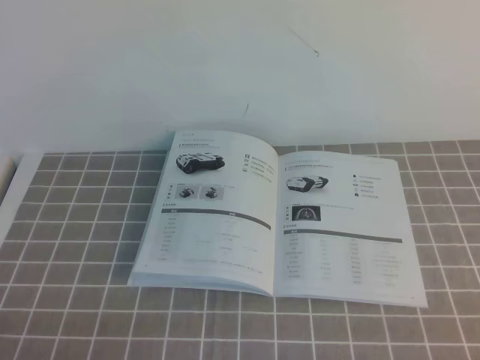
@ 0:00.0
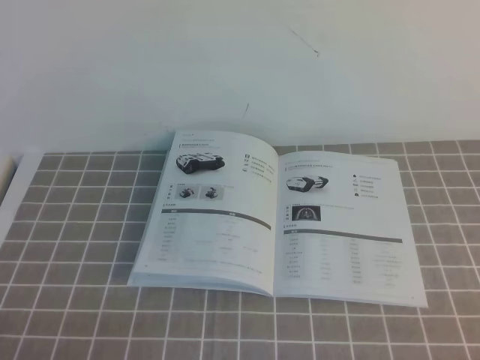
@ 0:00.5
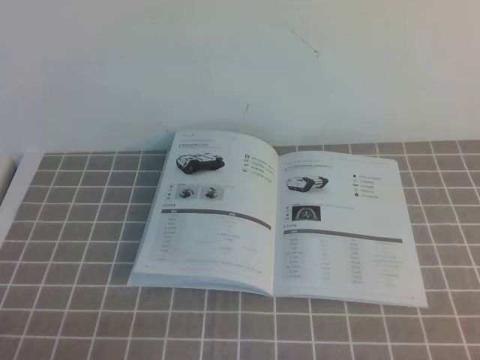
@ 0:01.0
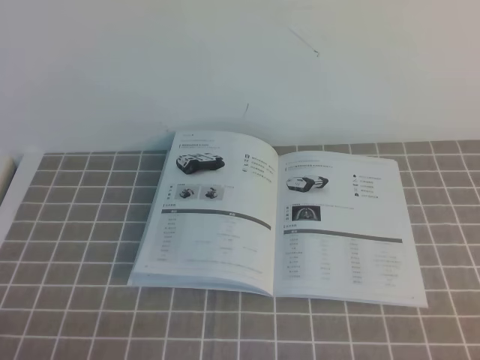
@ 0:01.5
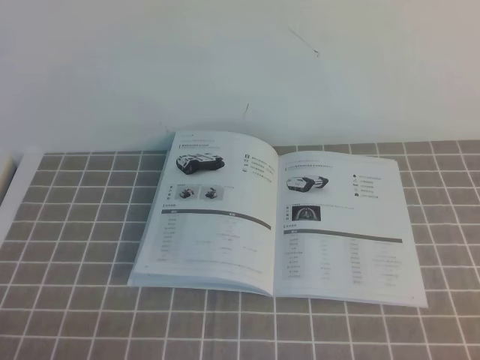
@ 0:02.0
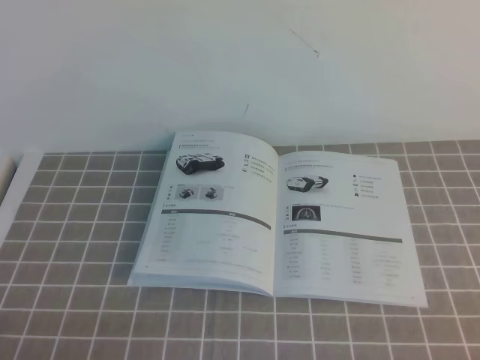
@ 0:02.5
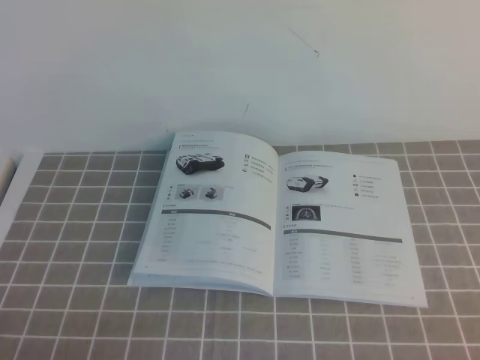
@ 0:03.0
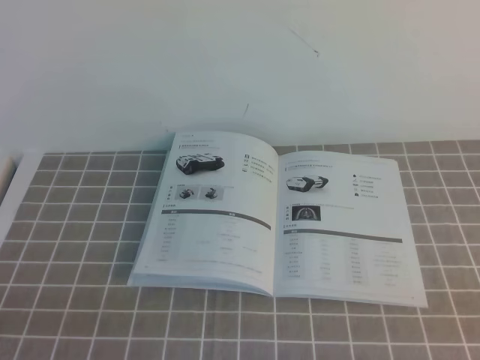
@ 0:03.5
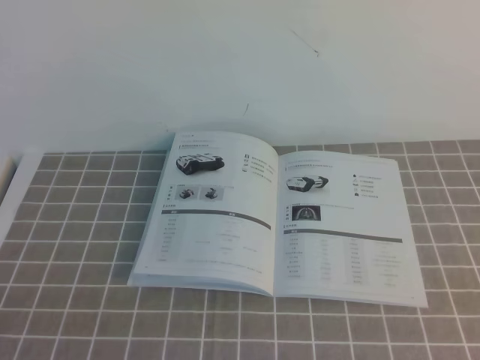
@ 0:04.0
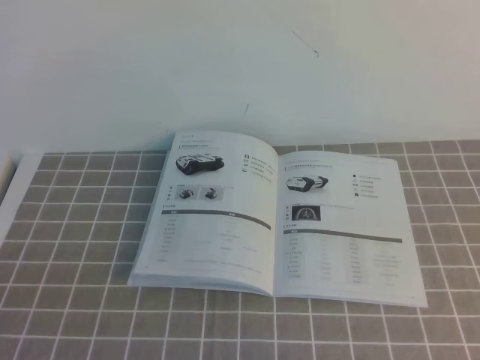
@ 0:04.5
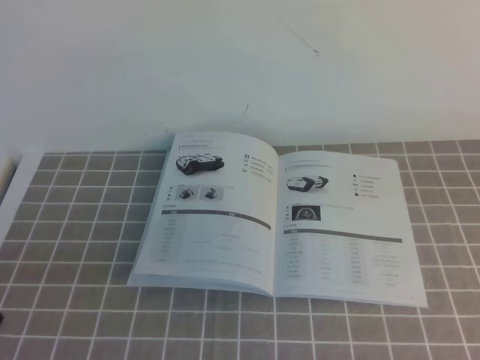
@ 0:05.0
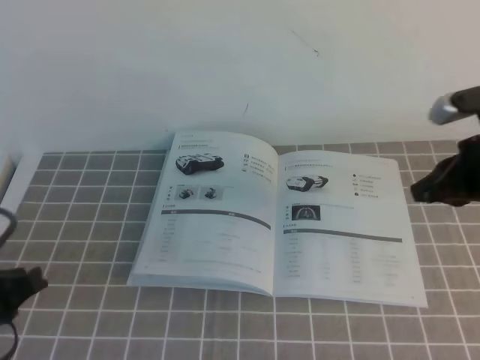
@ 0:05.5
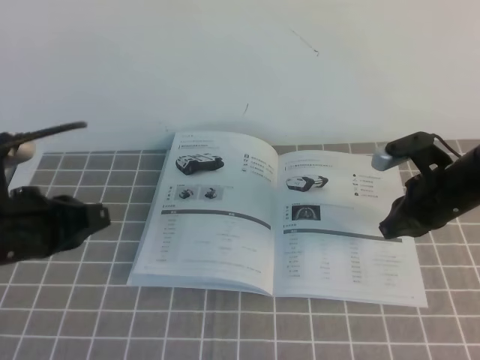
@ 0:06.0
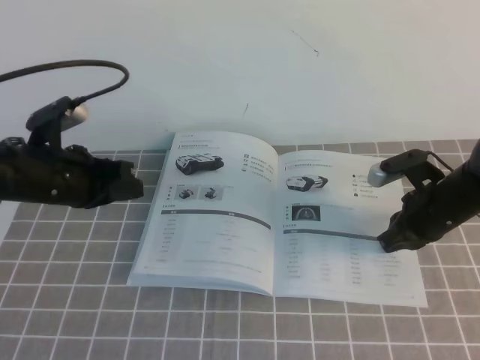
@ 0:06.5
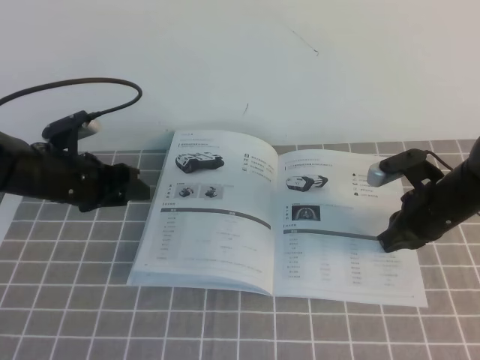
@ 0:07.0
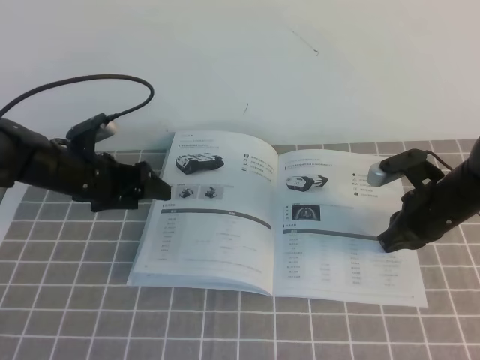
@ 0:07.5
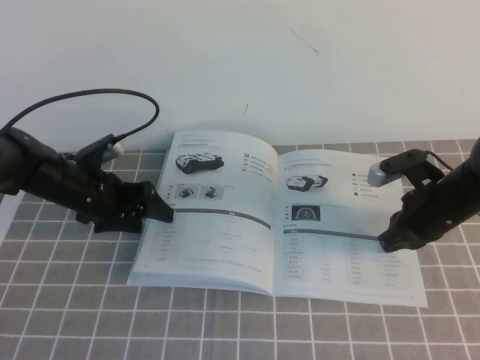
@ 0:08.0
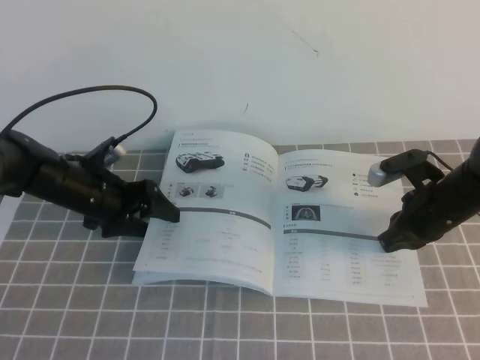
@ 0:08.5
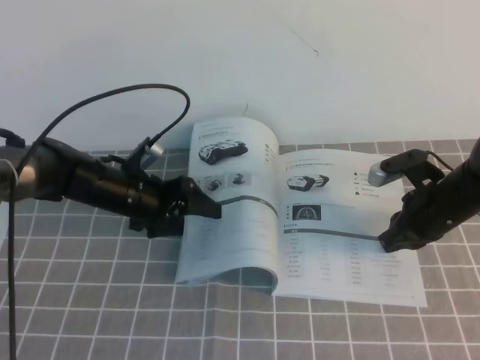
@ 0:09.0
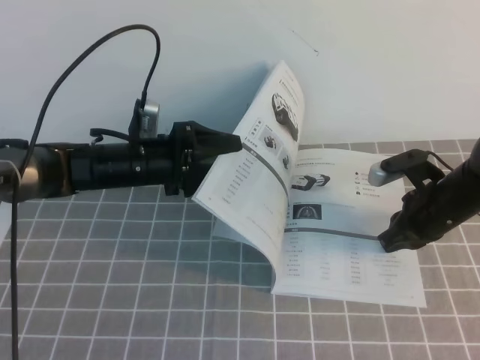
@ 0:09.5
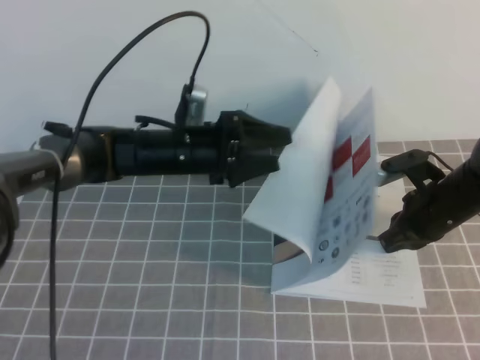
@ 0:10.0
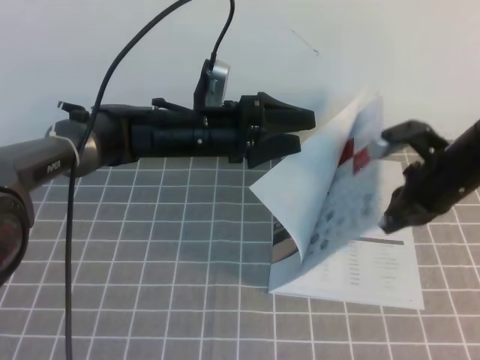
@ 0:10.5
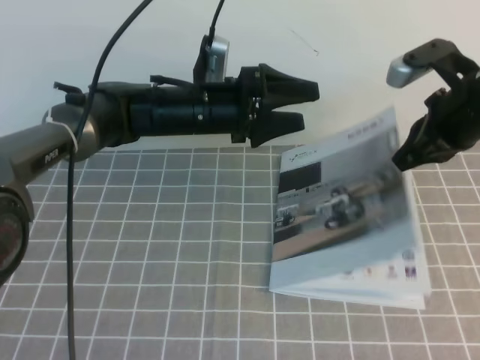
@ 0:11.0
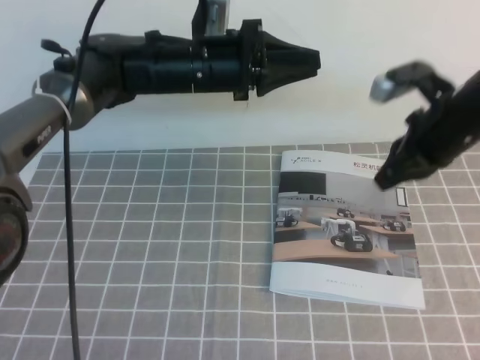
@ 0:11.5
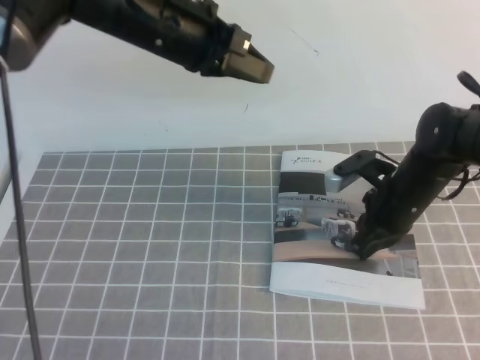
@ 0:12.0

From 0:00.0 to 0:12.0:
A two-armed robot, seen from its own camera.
Task of the whole recording: on the grey tablecloth, hold the book with one hand and close it with the other.
From 0:00.0 to 0:02.0: Both grippers stay about where they are.
From 0:04.0 to 0:06.0: The left gripper moves forward, roughly 20 cm. The right gripper goes about 35 cm forward.
From 0:06.0 to 0:08.0: The left gripper moves forward and downward, about 20 cm, and opens.
From 0:08.0 to 0:10.0: The left gripper heads to the right, covering about 15 cm.
From 0:10.0 to 0:12.0: The left gripper heads upward, covering roughly 20 cm, and closes its fingers; the right gripper reaches roughly 15 cm upward, then returns.

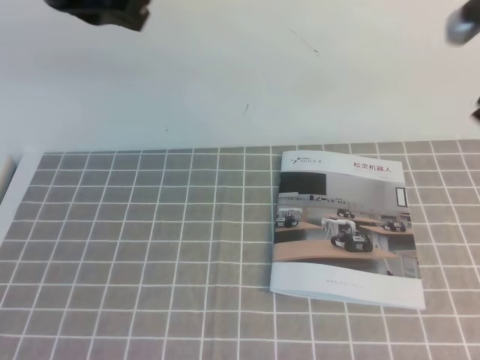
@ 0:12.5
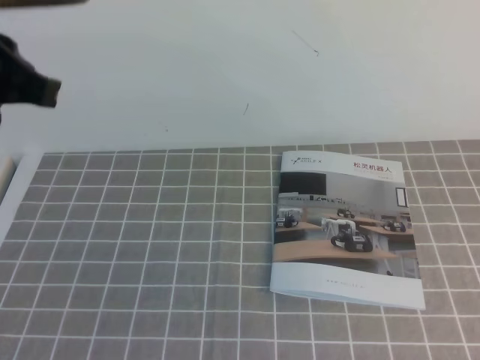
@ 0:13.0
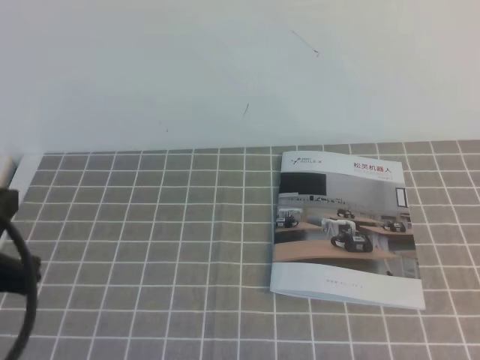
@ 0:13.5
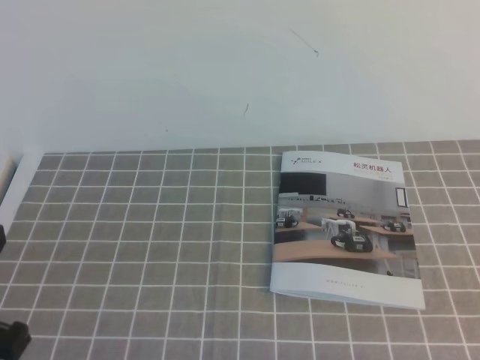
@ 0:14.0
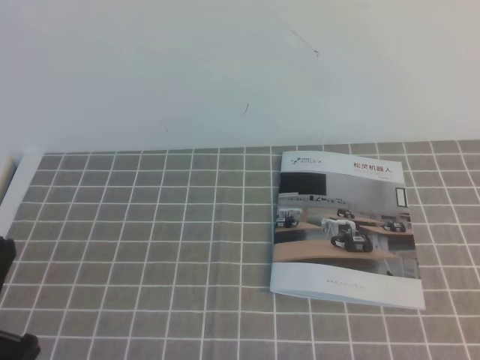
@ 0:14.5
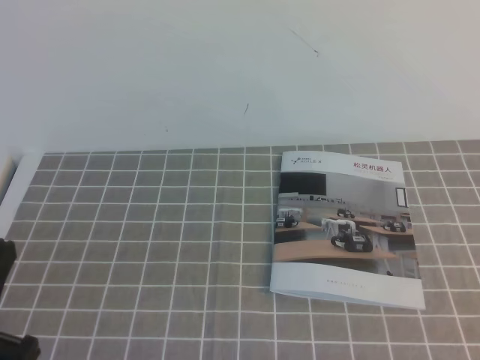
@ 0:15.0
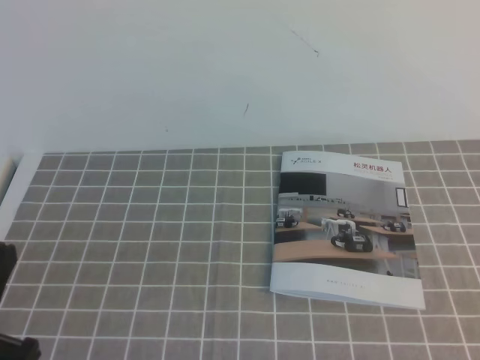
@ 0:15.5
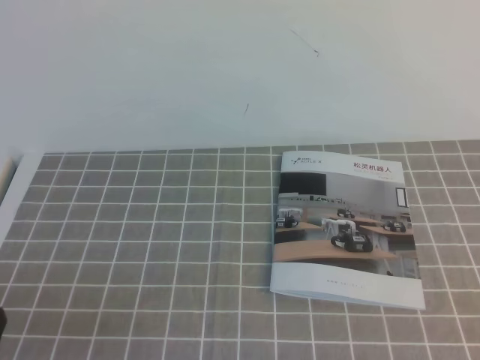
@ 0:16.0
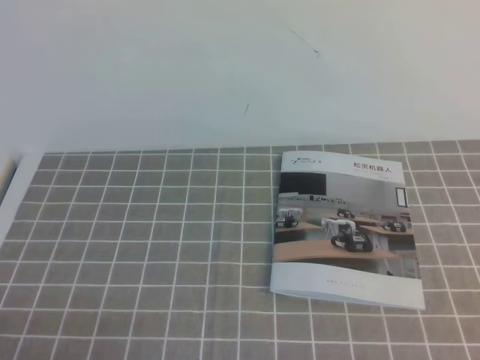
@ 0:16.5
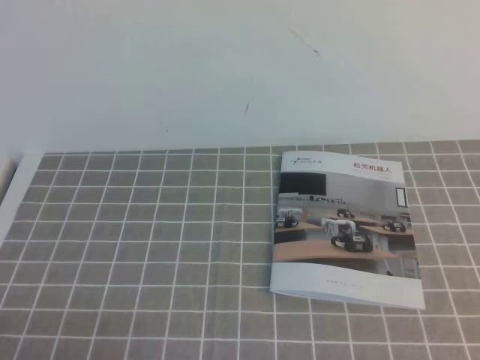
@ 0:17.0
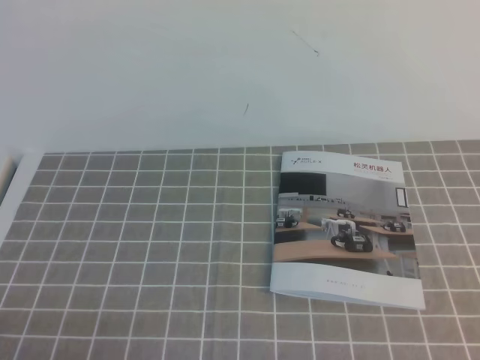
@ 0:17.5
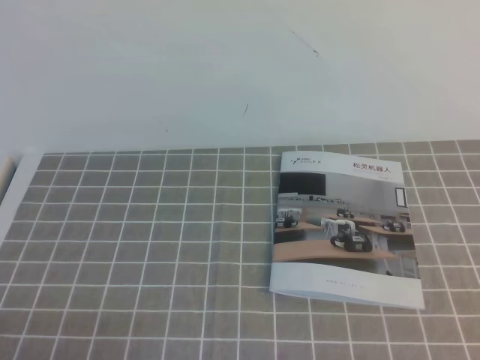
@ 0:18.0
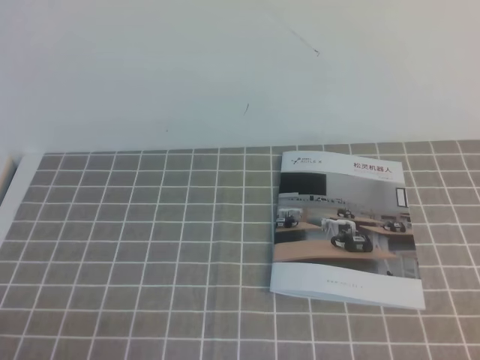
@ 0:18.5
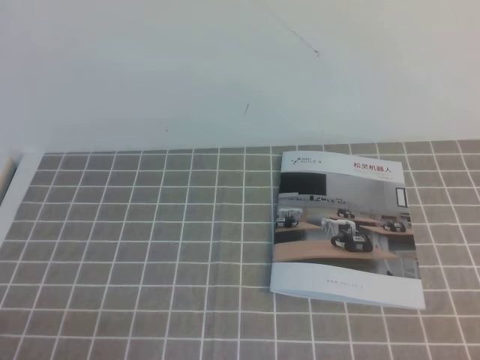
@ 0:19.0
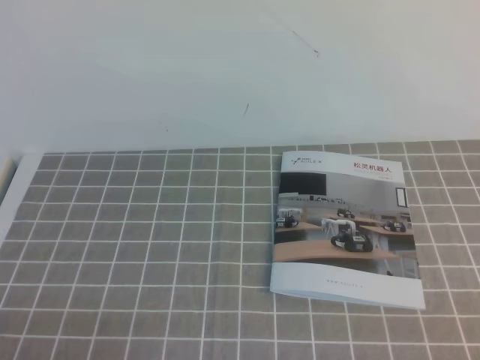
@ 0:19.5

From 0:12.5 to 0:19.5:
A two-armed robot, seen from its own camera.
Task of the whole recording: on the grey tablecloth, hold the book with one hand and close it with the other.
Step, from 0:12.5 to 0:19.5: Close the open book.
From 0:12.5 to 0:14.5: The right gripper heads backward, covering roughly 30 cm. The left gripper goes roughly 30 cm backward and downward.
From 0:14.5 to 0:16.0: The left gripper moves downward, approximately 5 cm.

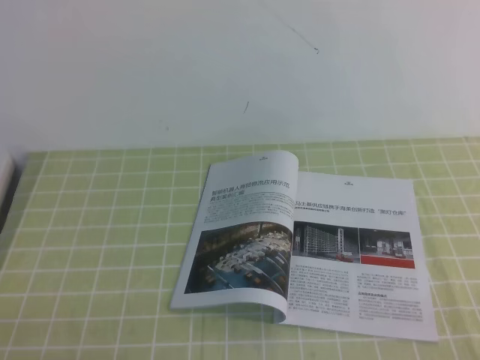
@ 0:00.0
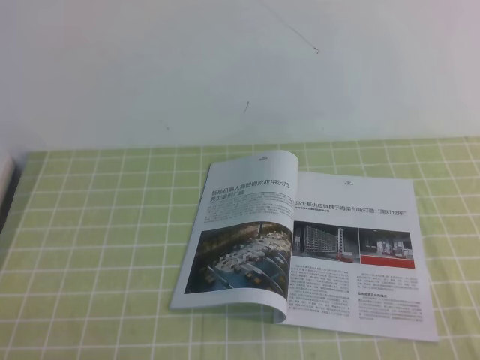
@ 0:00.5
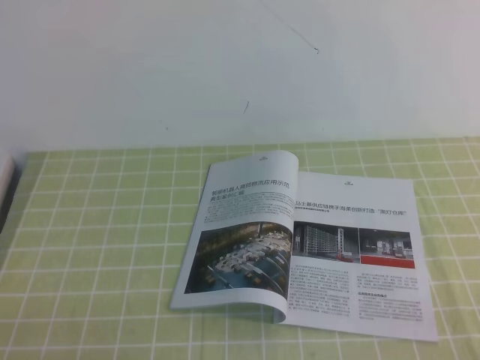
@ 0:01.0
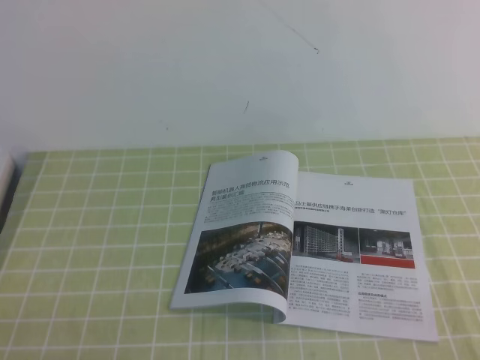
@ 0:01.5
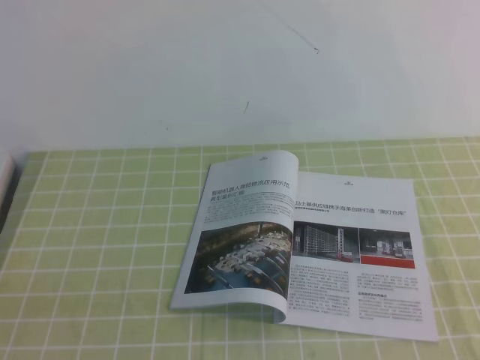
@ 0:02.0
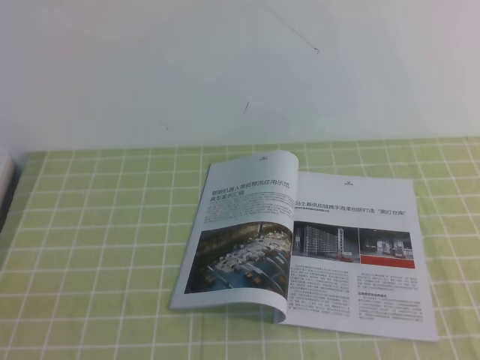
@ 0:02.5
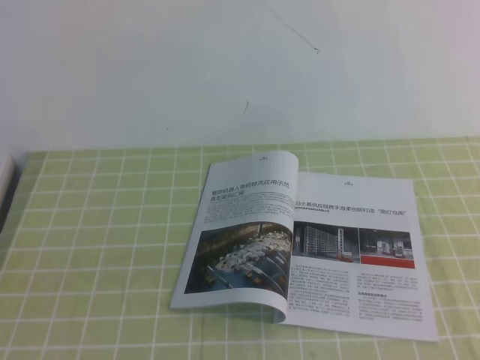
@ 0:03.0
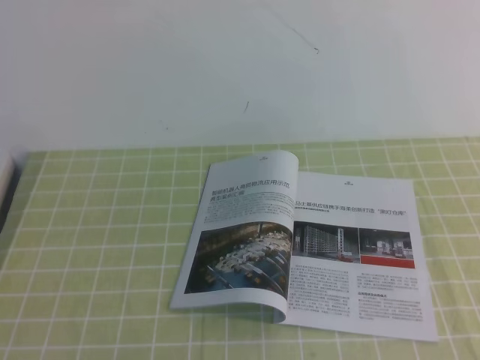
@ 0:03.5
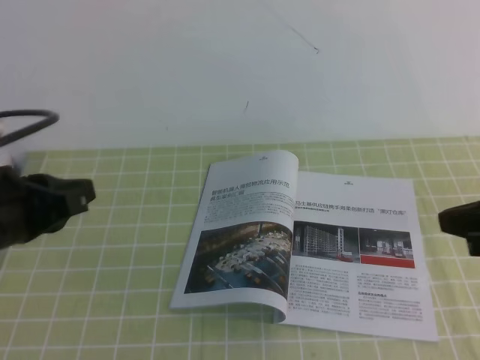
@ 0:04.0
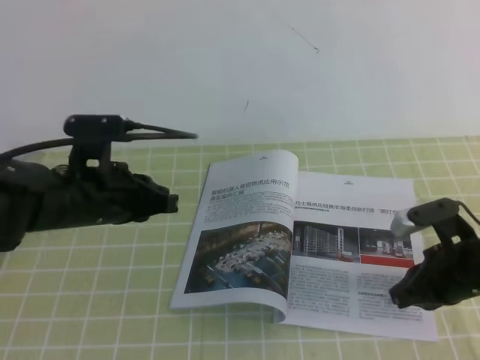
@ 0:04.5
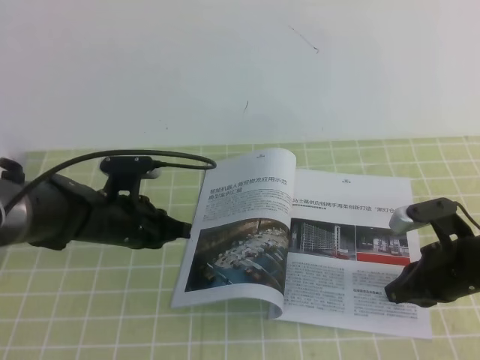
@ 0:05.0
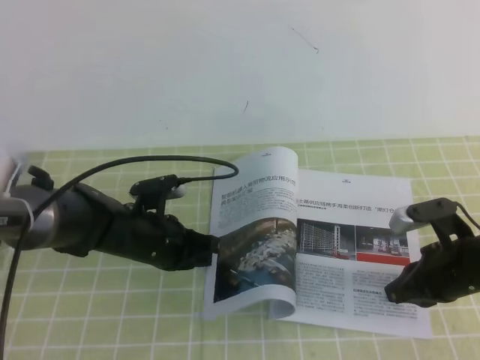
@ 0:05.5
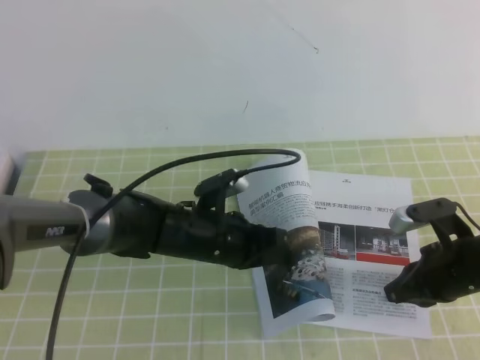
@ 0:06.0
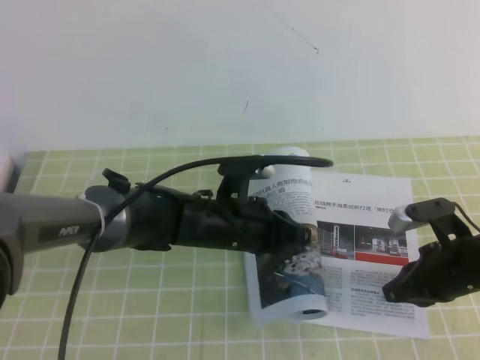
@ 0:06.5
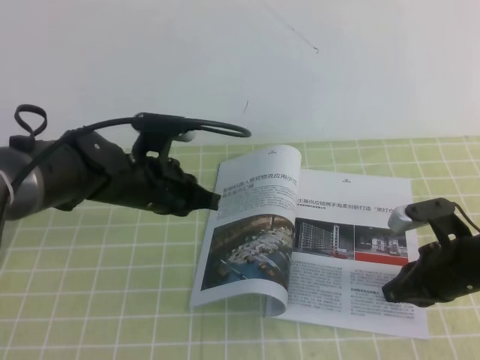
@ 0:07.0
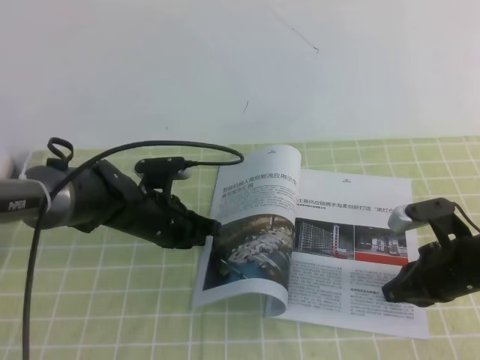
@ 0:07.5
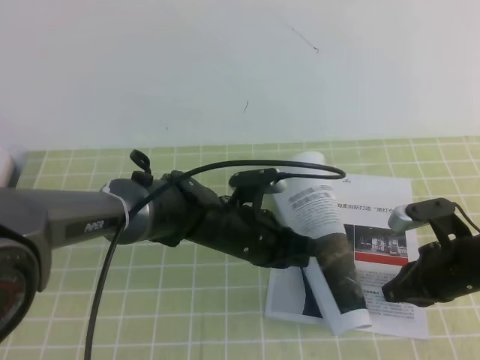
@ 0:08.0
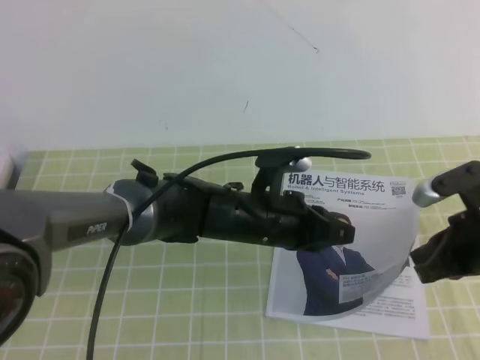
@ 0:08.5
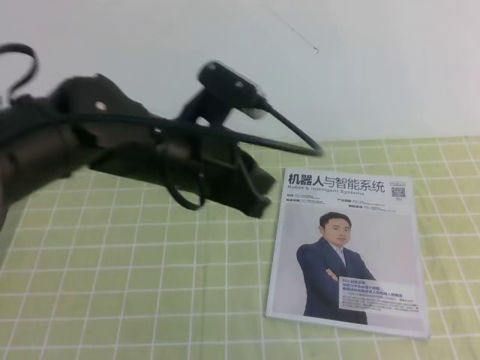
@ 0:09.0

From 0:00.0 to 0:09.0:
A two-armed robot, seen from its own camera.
Task of the whole recording: on the green tablecloth, hold the book with one hand and close it with the other.
From 0:02.0 to 0:04.5: The two grippers go some 25 cm forward.
From 0:04.5 to 0:07.0: The left gripper heads to the right, covering some 5 cm.
From 0:07.0 to 0:09.0: The right gripper goes roughly 20 cm upward and backward. Meanwhile the left gripper moves upward and backward, roughly 10 cm.
